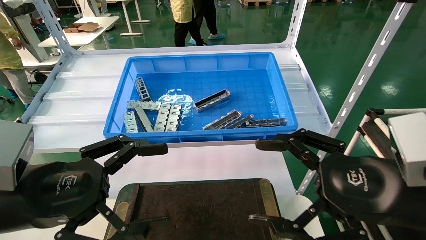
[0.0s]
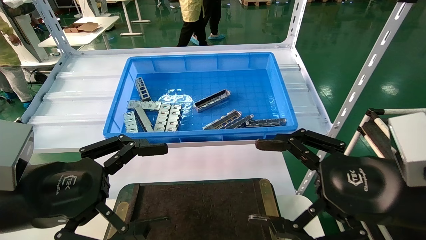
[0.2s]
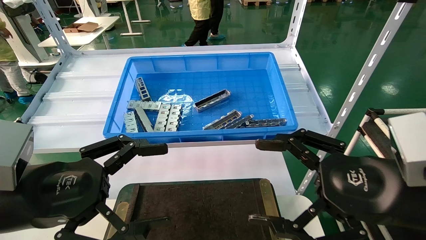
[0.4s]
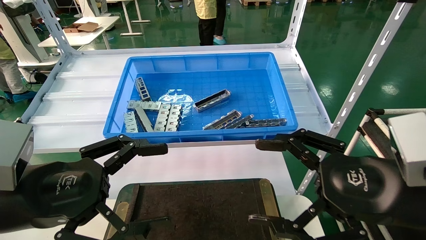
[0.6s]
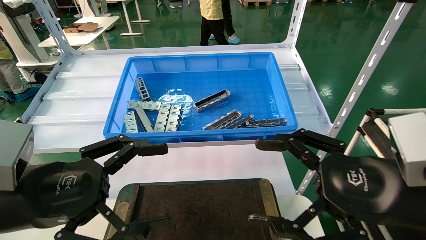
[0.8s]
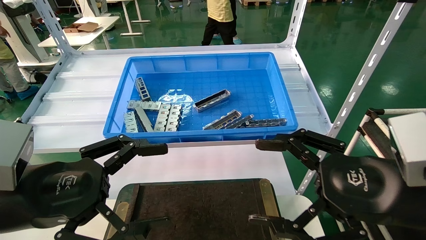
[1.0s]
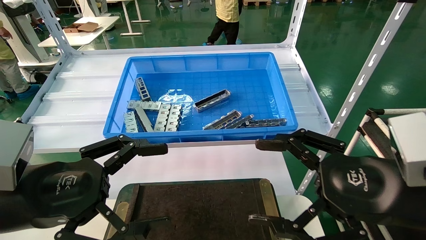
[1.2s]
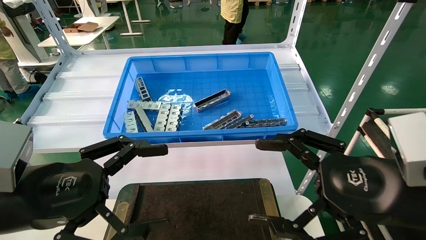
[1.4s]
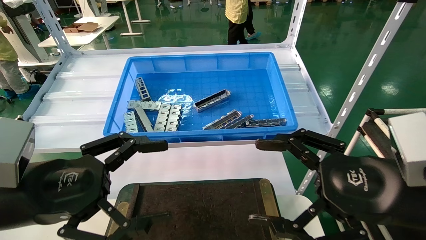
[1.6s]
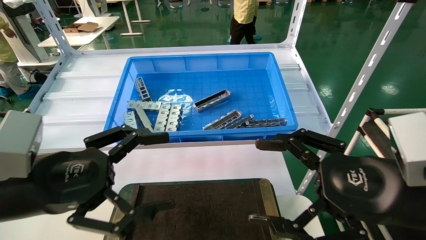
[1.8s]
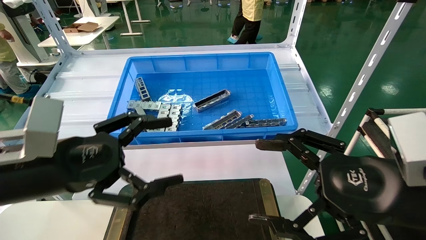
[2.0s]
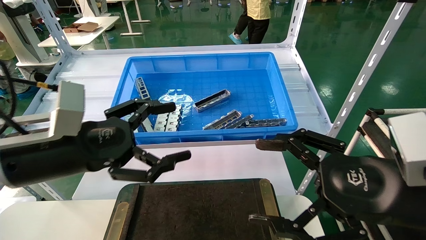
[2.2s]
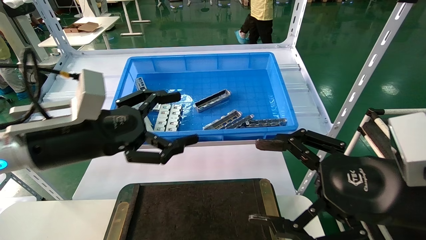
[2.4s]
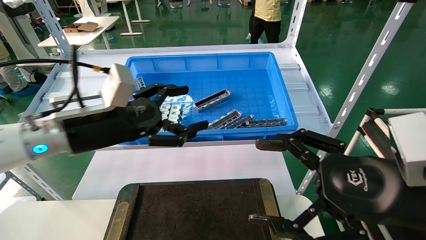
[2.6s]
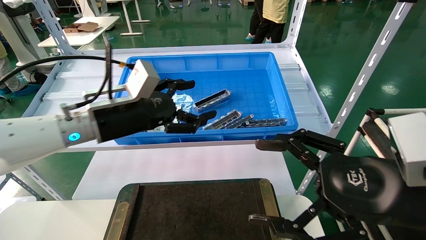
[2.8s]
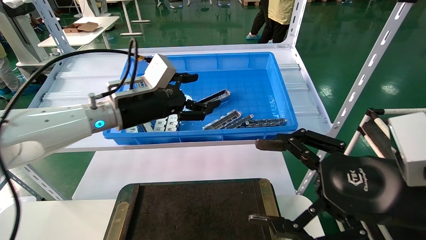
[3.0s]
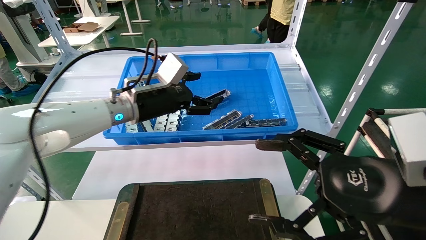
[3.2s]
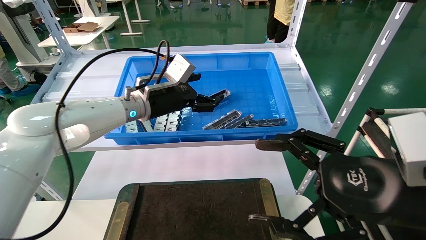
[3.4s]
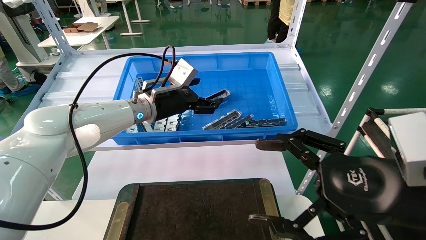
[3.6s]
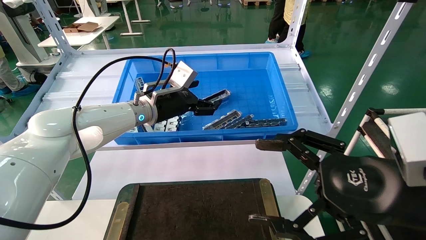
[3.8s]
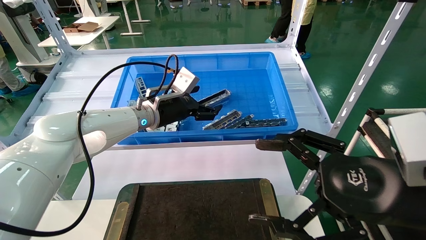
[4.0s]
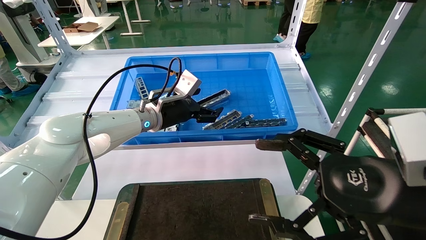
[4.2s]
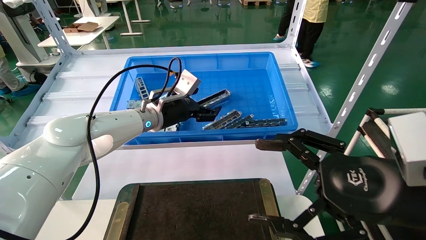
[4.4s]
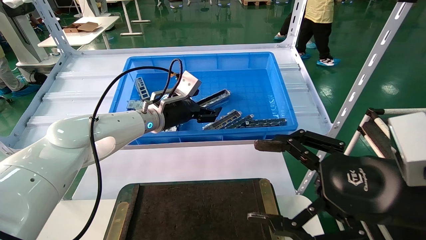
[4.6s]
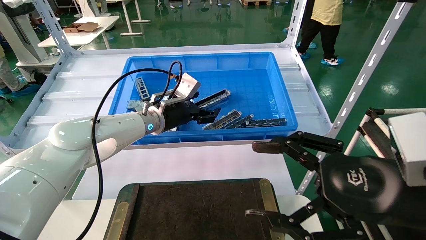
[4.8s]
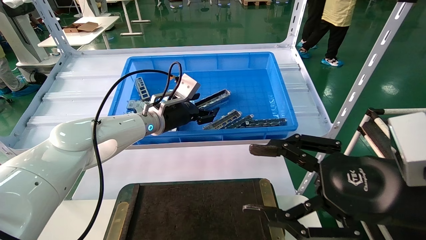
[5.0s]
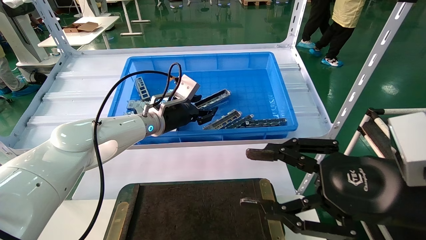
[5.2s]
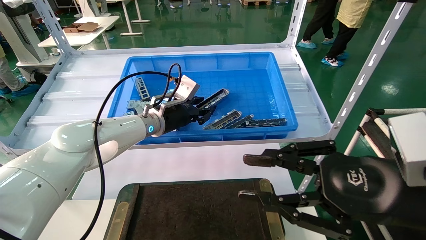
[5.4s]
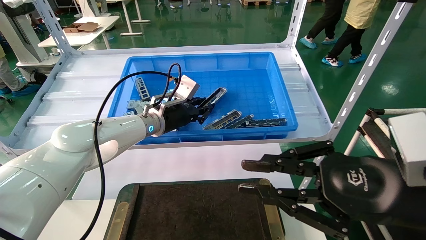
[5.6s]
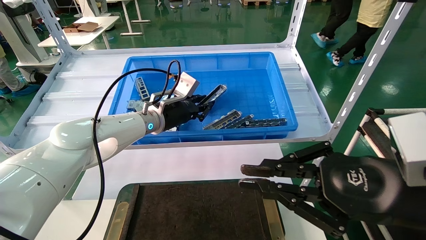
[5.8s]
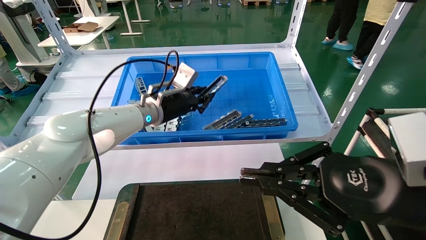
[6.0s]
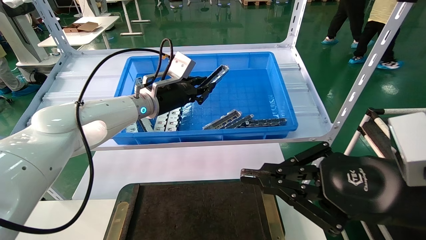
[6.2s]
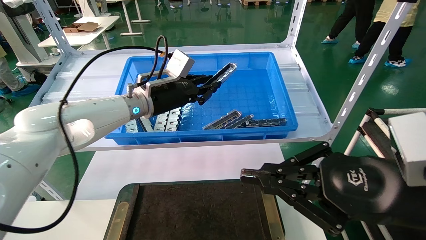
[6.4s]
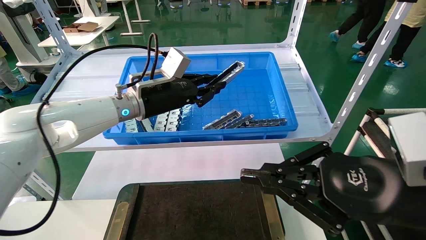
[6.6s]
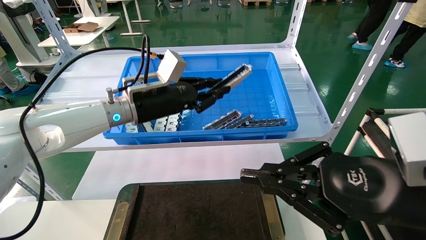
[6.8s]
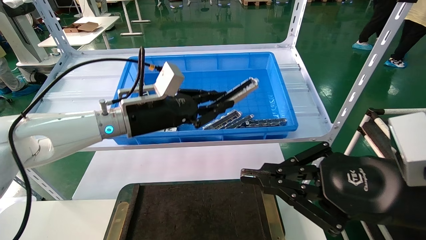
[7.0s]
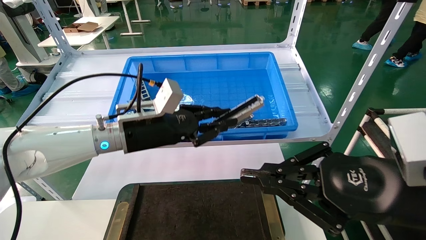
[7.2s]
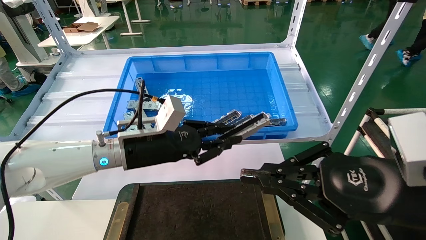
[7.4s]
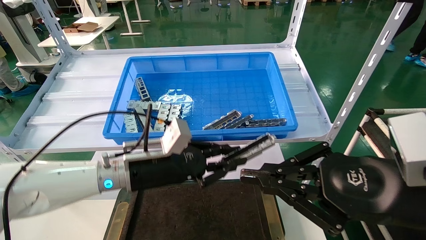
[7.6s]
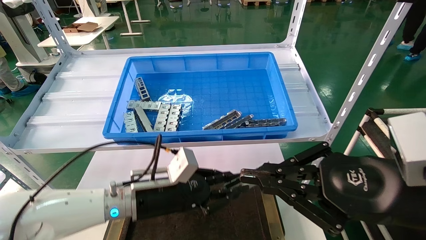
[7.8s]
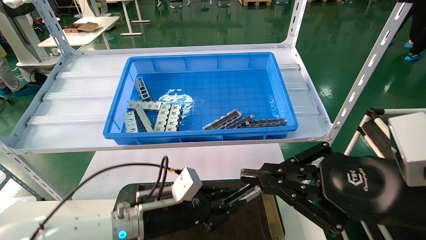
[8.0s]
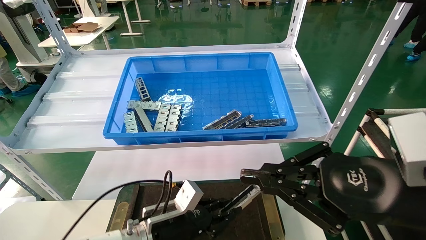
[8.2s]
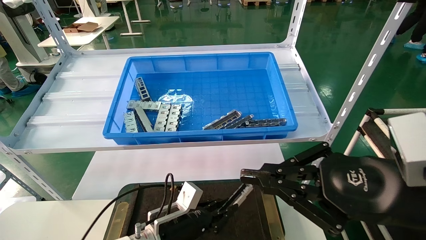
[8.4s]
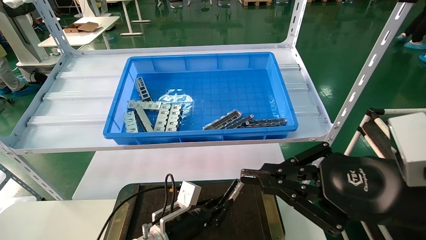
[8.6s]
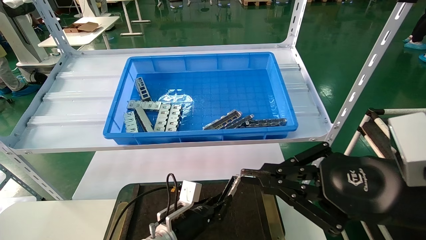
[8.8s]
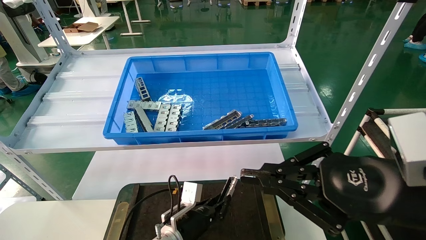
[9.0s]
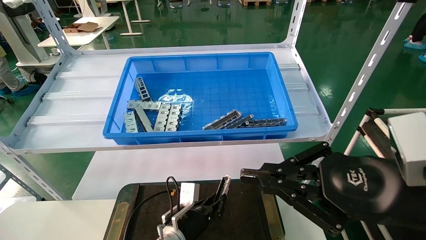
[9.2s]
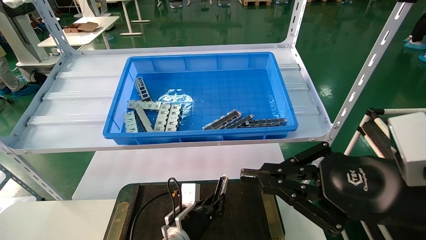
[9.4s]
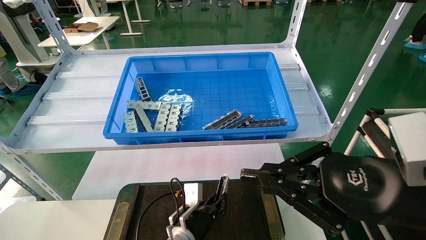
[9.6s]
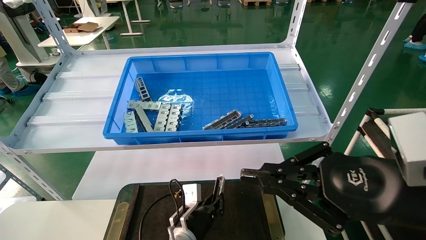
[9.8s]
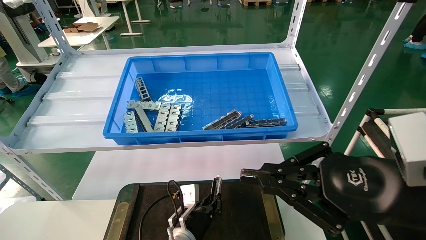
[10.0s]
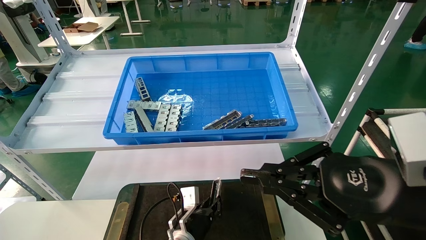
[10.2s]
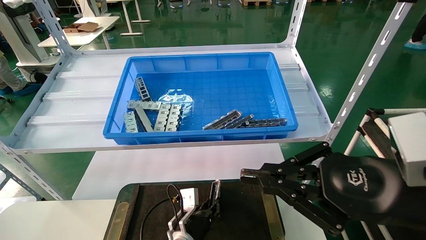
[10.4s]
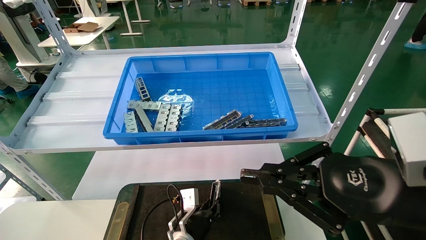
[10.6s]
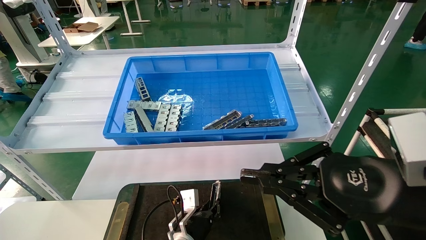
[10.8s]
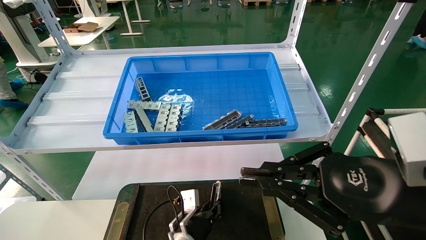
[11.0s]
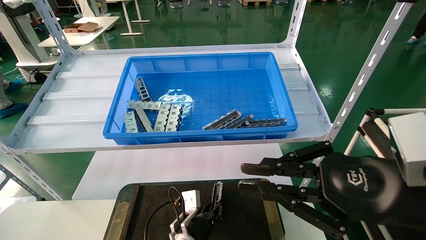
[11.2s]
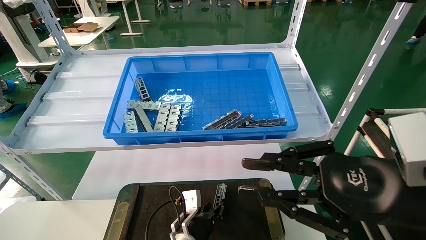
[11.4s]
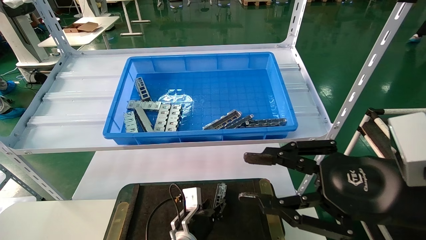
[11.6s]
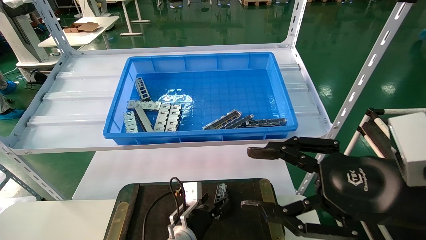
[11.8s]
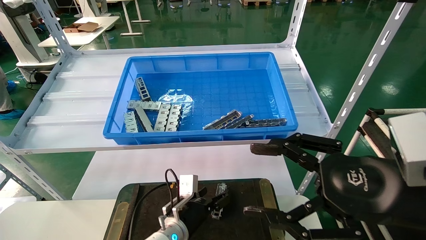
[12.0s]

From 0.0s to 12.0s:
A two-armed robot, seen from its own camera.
Task of the whole recording: Grasp the part with one hand and place it on the black container.
Step, from 1.8s to 5.4s: Pick up the front USB bracket from the feeding area.
Step, from 5.6s to 11.2s: Place the front USB bracket into the box.
From 0.0s to 1.6s: Neither gripper changes place.
From 1.6s to 3.0s: The left gripper moves forward and to the right, approximately 20 cm.
From 3.0s to 4.4s: The left gripper is displaced forward by roughly 10 cm.
From 4.4s to 6.0s: The left gripper closes. The right gripper closes up.
From 6.0s to 7.6s: The left gripper shifts approximately 15 cm backward and downward.
From 7.6s to 9.0s: The left gripper is displaced downward by approximately 20 cm.
From 9.0s to 10.4s: The grippers make only small movements.
From 10.4s to 12.0s: The right gripper opens up, while the left gripper opens its fingers.

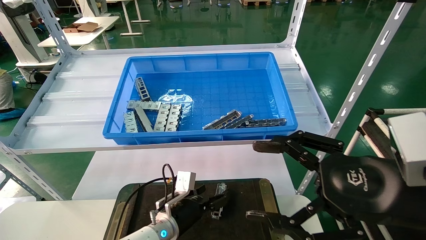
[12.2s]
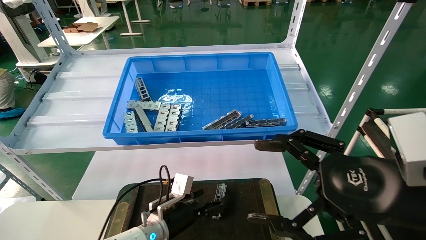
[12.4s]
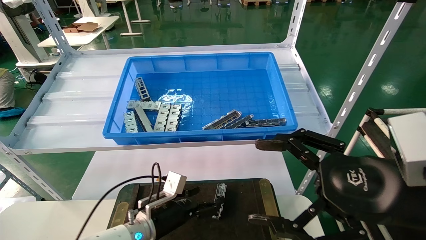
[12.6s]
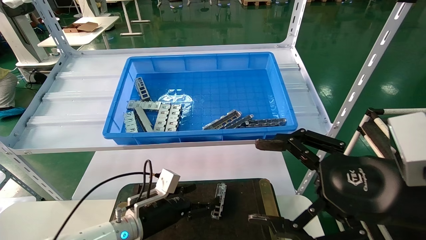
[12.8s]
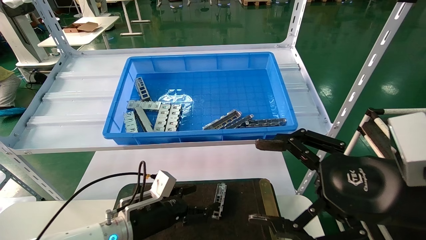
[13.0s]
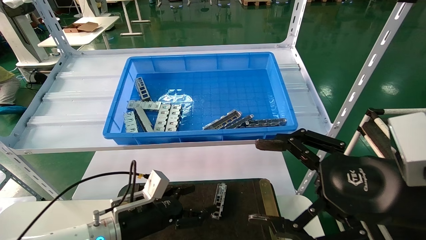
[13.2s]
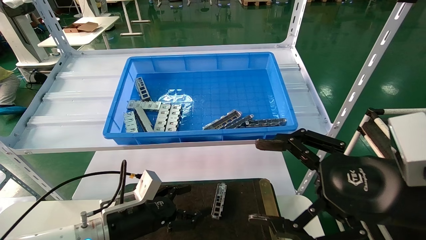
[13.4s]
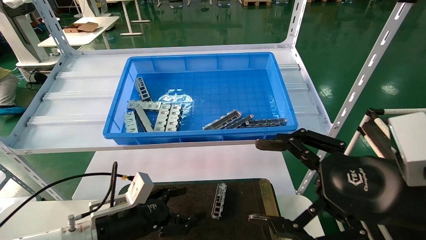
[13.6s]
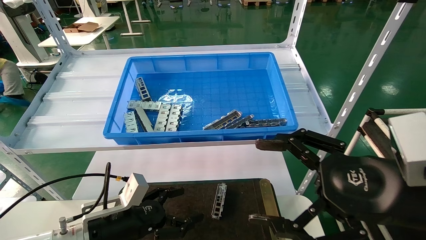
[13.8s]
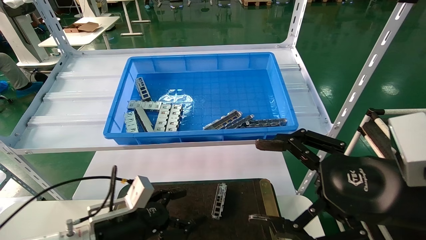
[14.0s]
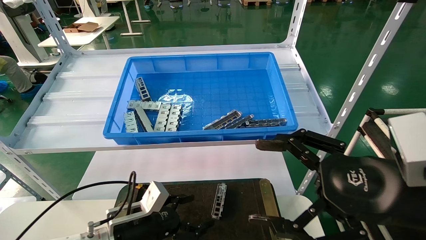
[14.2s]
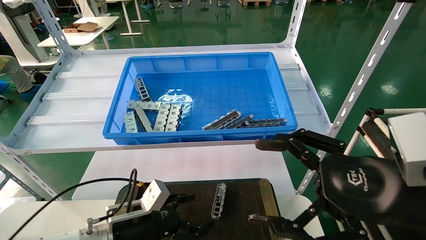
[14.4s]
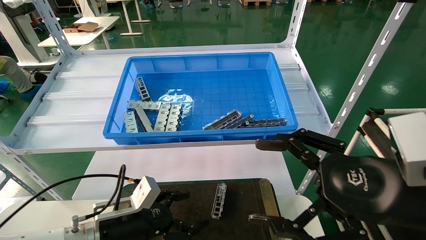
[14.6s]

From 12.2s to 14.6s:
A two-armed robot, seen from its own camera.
Task of the whole recording: Grasp the part with one hand and place it on the black container.
From 12.2s to 13.4s: The left gripper travels to the left, backward and upward by roughly 15 cm.
From 13.4s to 14.6s: The grippers move only a little.
